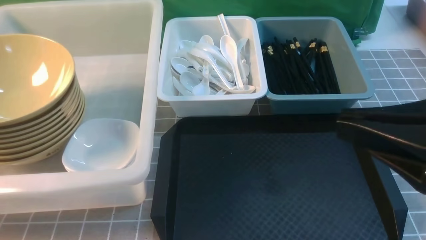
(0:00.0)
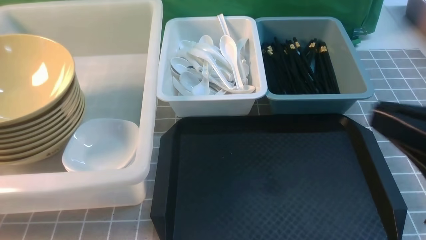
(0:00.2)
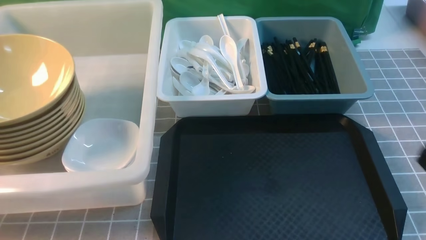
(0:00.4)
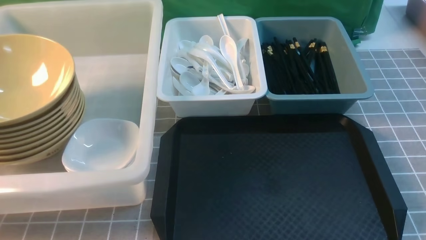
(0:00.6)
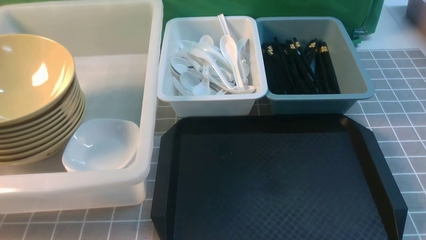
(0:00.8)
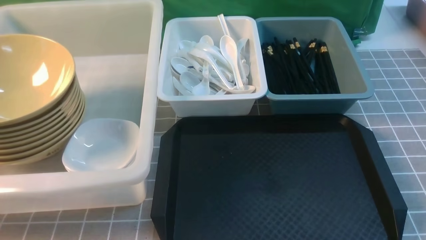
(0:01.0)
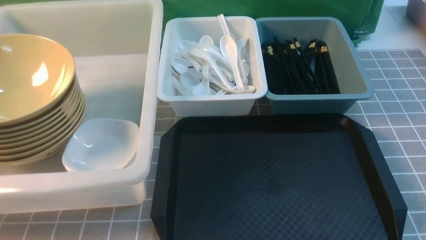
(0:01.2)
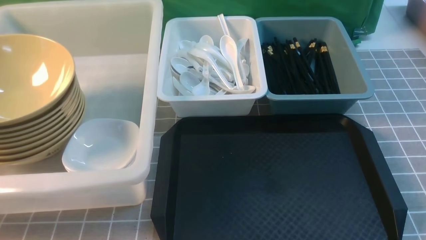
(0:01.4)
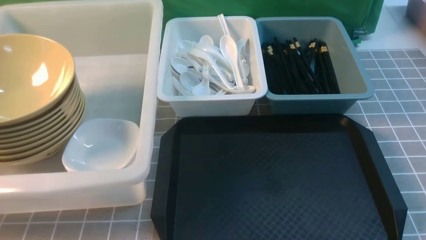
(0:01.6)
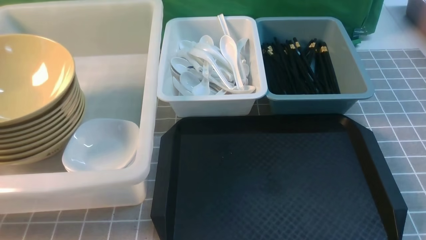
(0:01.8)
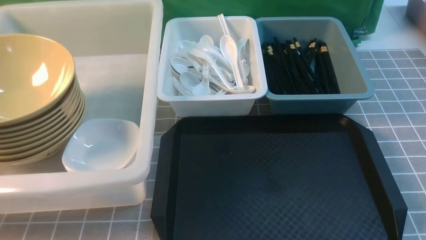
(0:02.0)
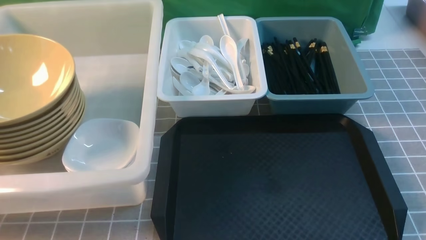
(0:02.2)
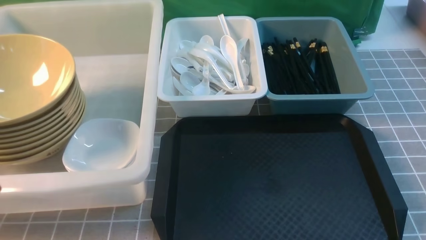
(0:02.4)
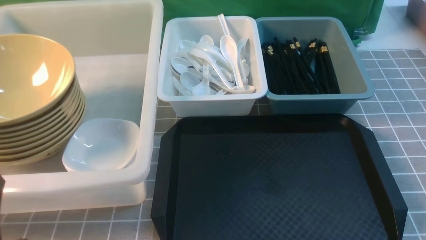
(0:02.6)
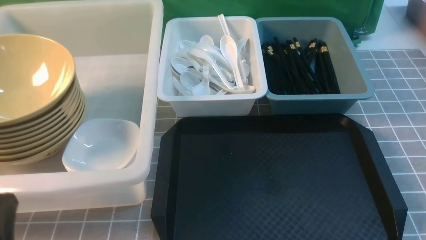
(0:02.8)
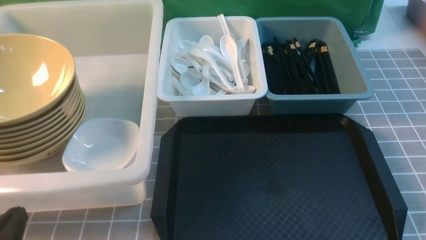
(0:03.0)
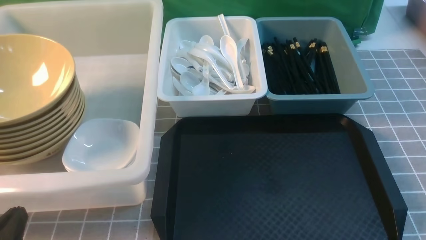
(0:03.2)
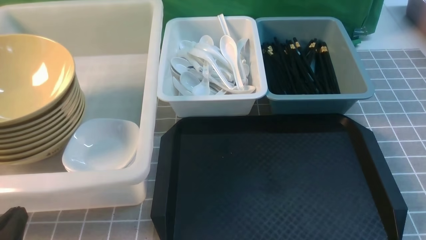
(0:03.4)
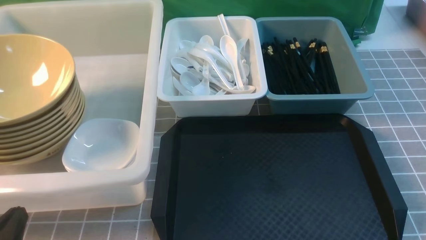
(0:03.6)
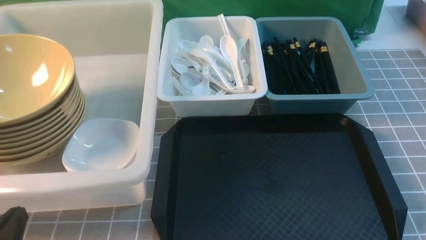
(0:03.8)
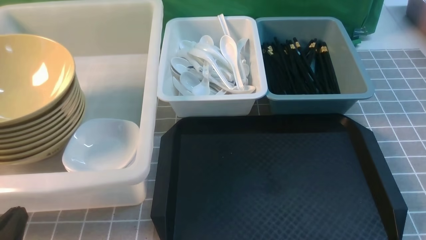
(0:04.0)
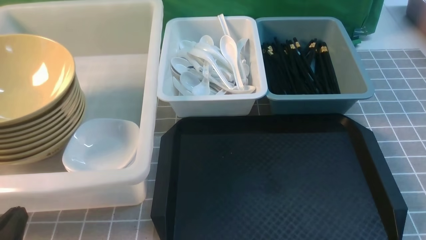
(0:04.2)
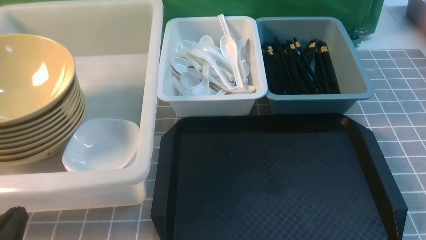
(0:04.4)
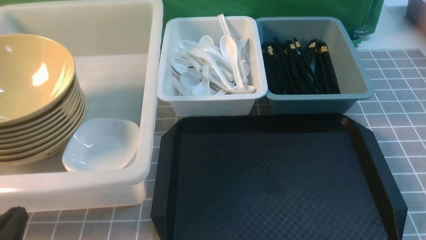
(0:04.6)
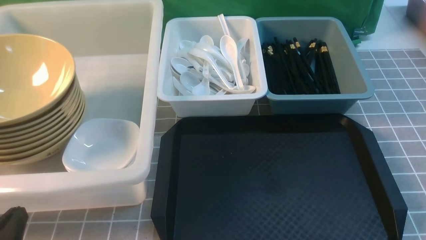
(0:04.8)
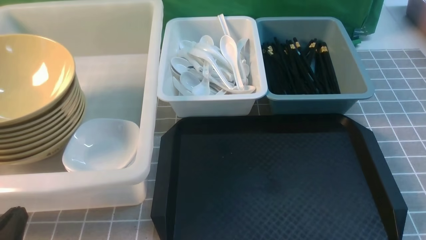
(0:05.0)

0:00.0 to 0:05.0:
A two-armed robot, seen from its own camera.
Task of the whole recording: on grey table put chopsticks spoon bowls plates into blue grey white boxes.
0:00.0 to 0:01.6: The right gripper moves downward and to the right, about 20 cm.
0:01.6 to 0:03.4: The left gripper heads downward, covering about 10 cm.
0:03.4 to 0:05.0: Neither gripper changes place.
